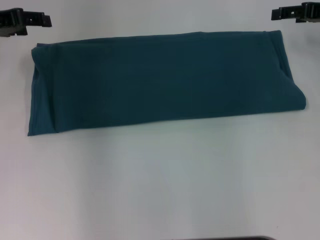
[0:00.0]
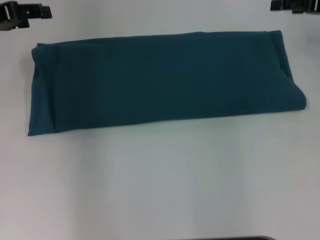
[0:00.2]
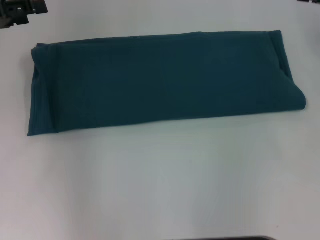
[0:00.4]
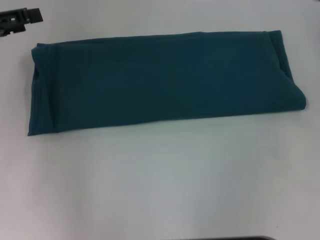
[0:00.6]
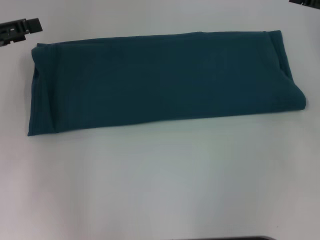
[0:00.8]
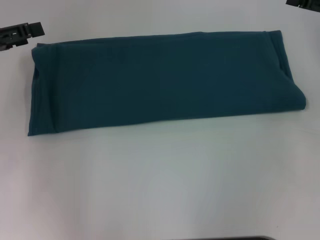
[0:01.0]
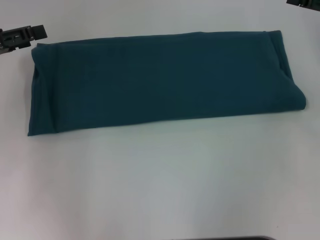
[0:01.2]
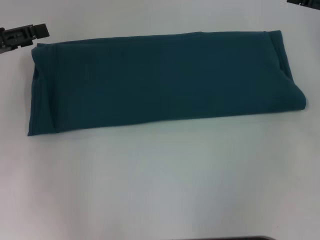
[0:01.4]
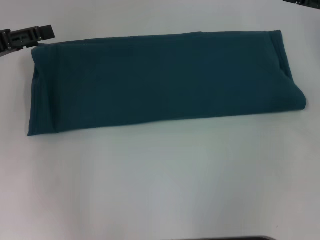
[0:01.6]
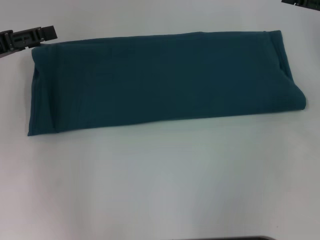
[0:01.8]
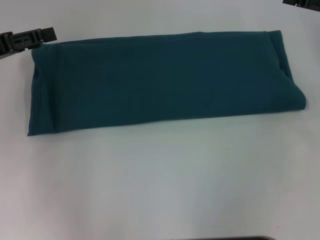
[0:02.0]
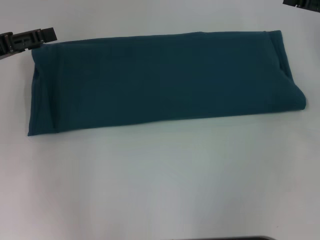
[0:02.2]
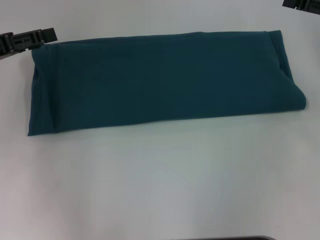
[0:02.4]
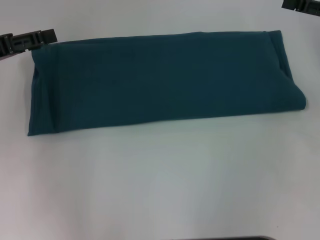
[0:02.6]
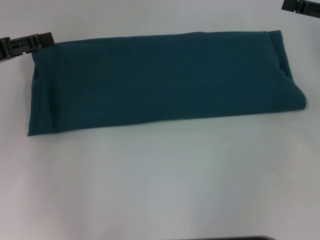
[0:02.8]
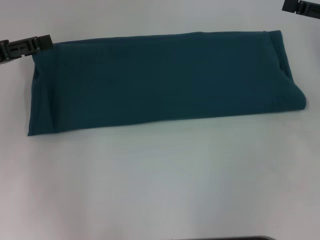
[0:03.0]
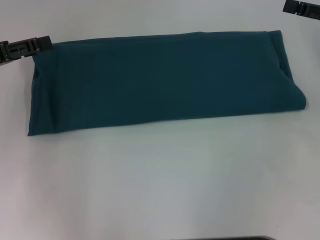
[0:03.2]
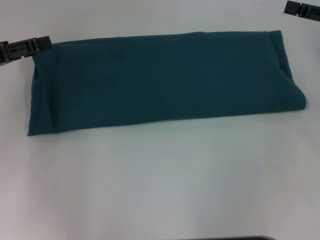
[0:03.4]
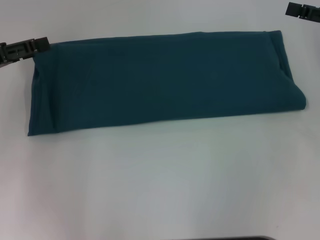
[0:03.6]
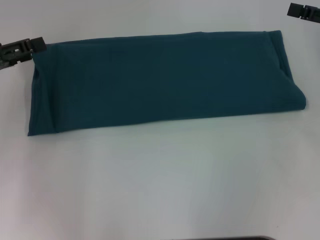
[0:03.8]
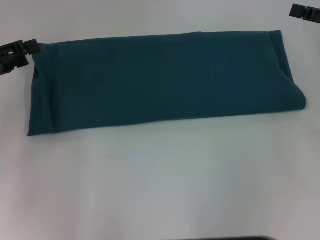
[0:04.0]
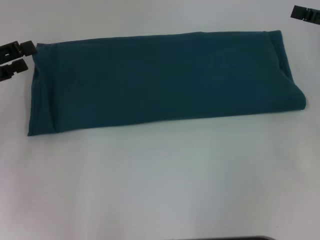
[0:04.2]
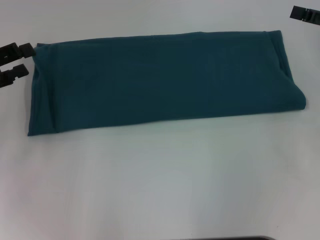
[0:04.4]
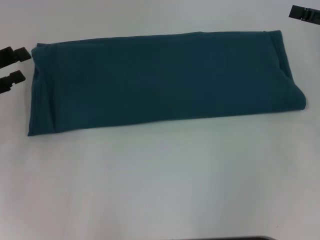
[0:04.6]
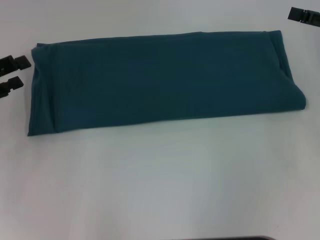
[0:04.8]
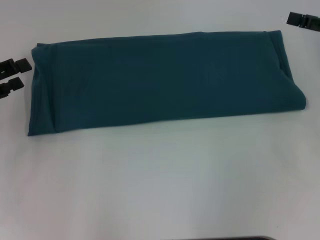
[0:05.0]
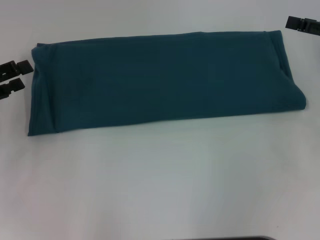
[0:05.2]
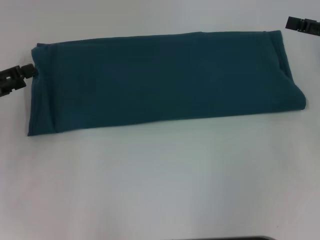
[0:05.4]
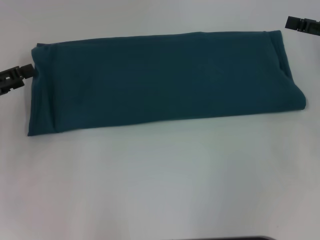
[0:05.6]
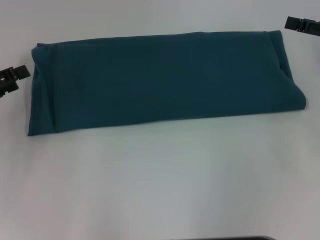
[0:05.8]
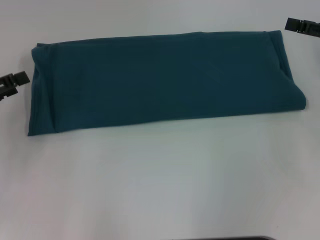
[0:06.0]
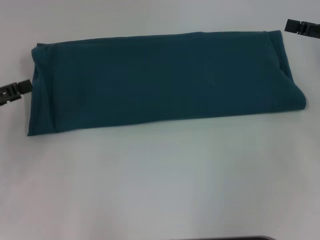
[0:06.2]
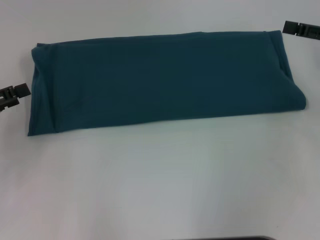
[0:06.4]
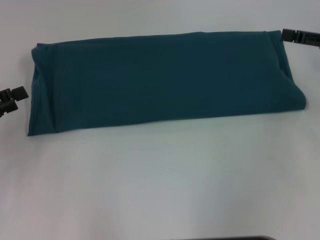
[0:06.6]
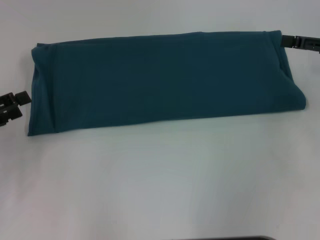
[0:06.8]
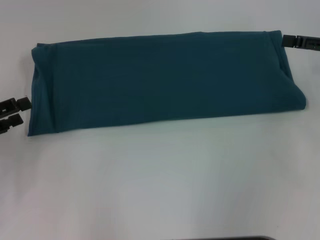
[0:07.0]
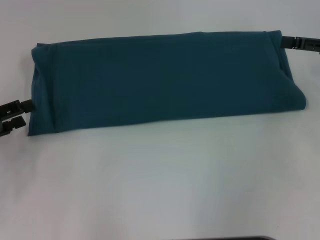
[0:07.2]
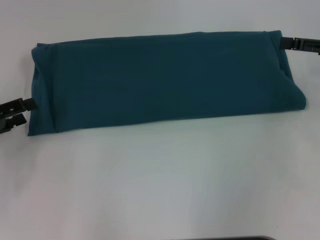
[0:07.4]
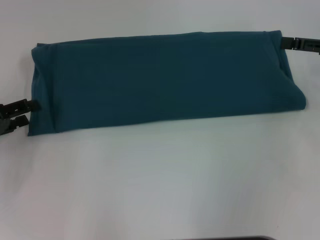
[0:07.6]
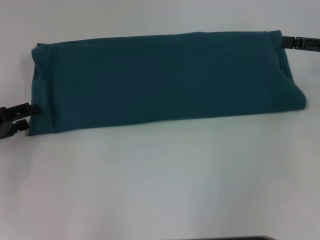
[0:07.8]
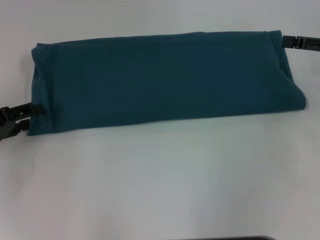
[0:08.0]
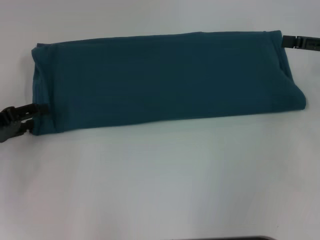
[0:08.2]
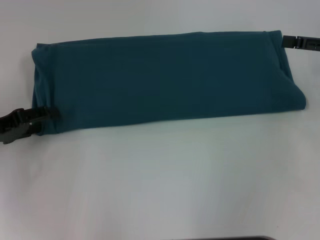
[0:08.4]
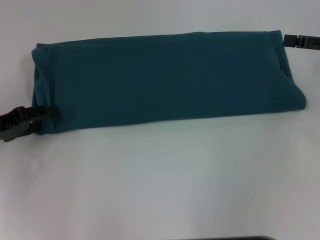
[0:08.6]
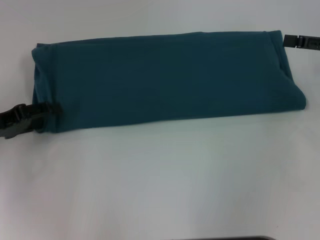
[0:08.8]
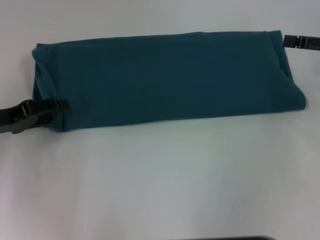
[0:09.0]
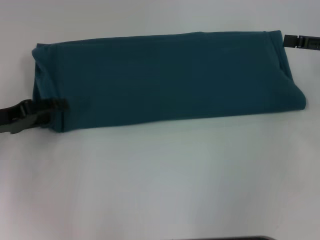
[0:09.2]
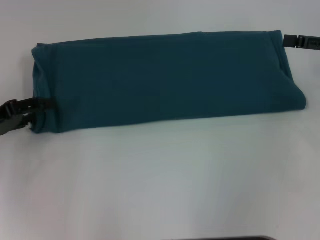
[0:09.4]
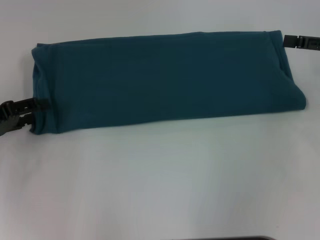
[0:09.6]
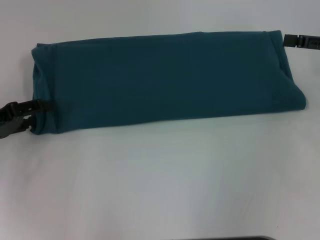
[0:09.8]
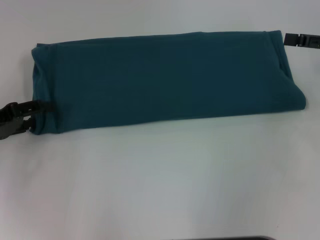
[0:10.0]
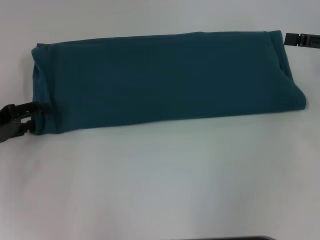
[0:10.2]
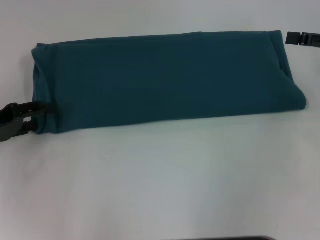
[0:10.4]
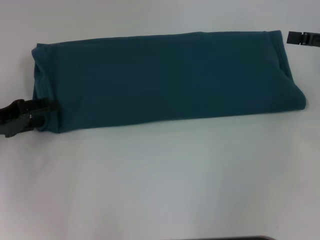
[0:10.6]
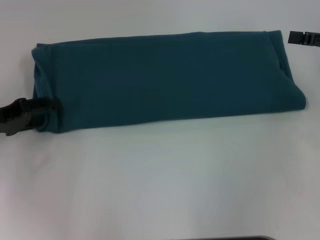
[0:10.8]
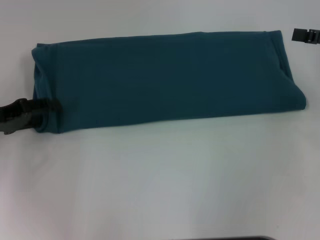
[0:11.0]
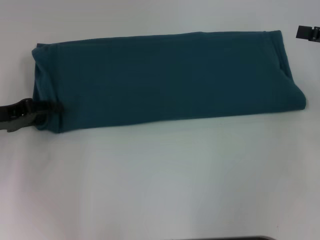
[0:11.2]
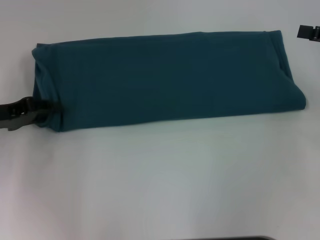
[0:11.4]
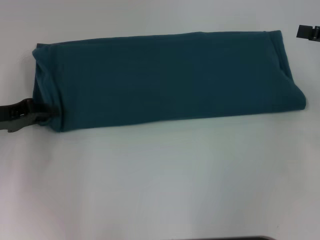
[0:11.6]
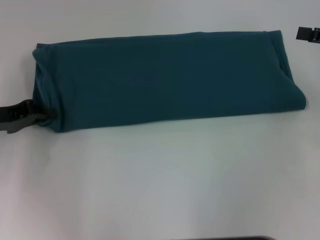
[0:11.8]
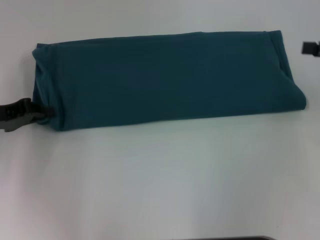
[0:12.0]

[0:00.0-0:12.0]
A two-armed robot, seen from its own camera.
0:00.0 to 0:01.6: Both grippers move backward, about 5 cm.
0:01.6 to 0:03.0: The two grippers keep their place.
0:04.4 to 0:06.0: There are only small adjustments of the grippers.
0:06.0 to 0:10.4: The grippers move only a little.
0:10.4 to 0:12.0: The left gripper closes up.

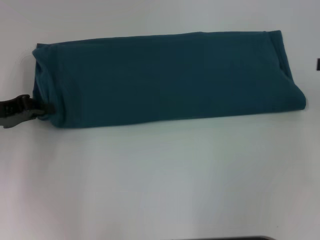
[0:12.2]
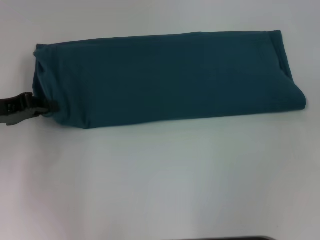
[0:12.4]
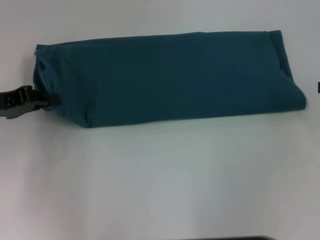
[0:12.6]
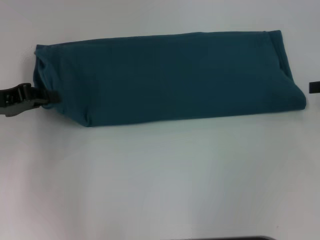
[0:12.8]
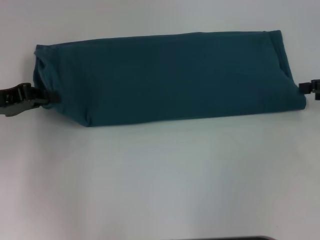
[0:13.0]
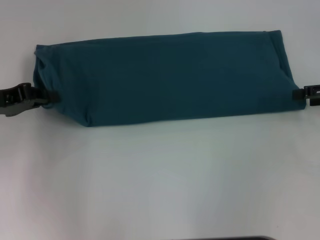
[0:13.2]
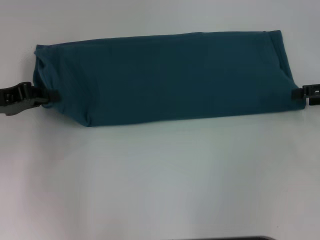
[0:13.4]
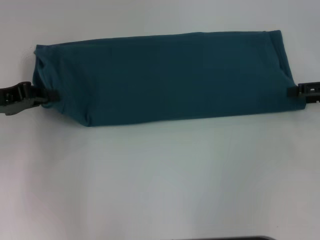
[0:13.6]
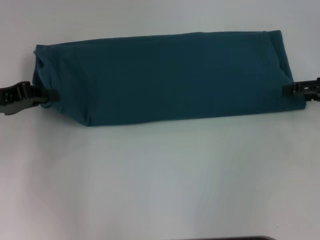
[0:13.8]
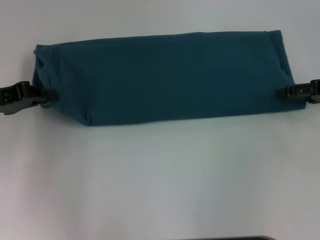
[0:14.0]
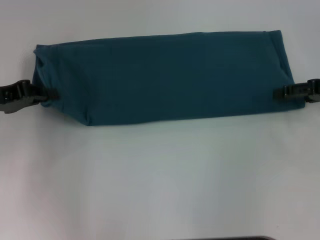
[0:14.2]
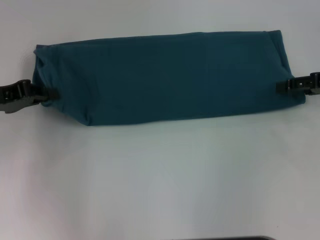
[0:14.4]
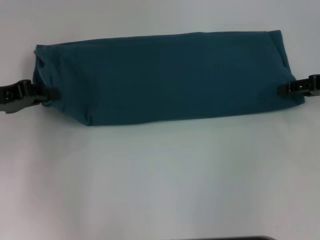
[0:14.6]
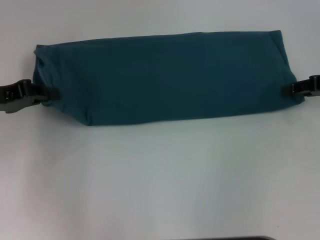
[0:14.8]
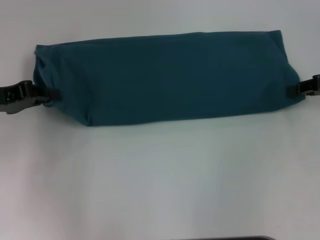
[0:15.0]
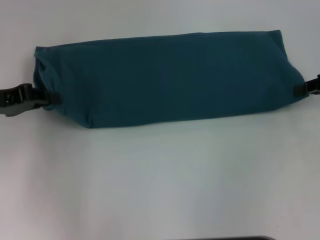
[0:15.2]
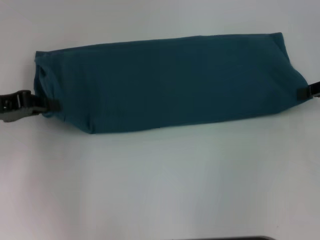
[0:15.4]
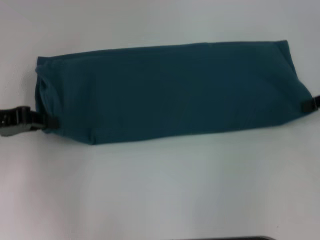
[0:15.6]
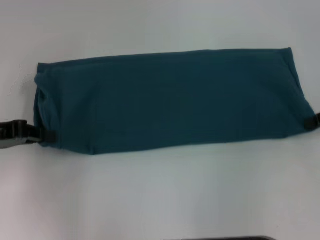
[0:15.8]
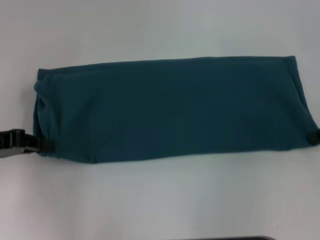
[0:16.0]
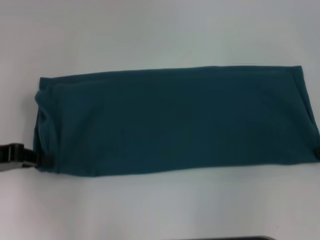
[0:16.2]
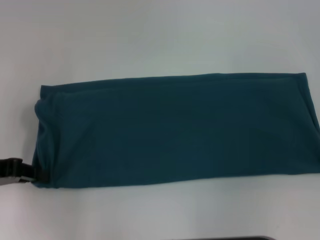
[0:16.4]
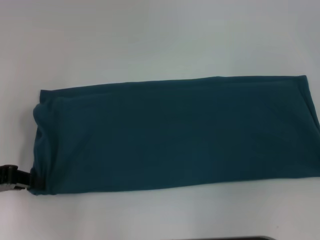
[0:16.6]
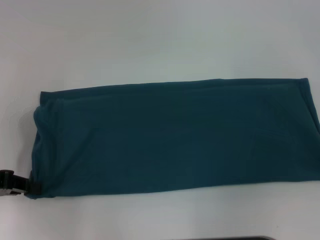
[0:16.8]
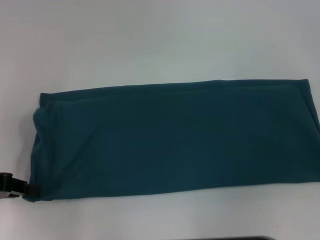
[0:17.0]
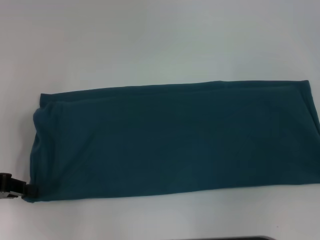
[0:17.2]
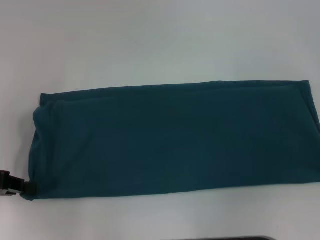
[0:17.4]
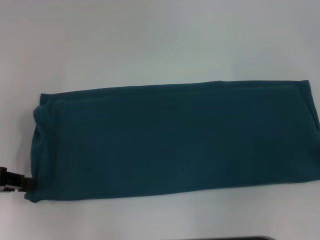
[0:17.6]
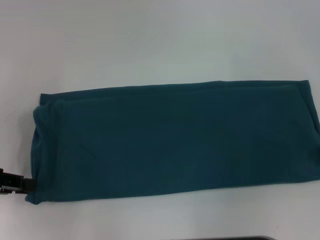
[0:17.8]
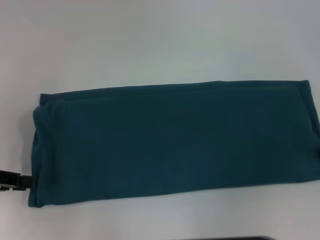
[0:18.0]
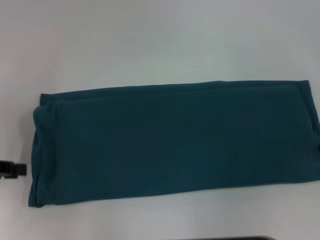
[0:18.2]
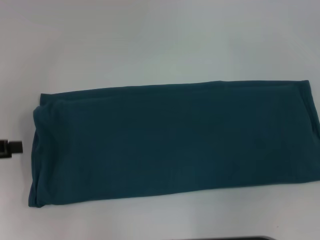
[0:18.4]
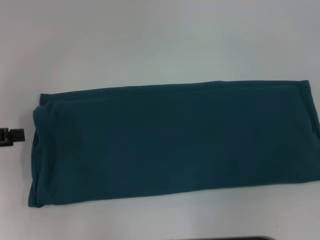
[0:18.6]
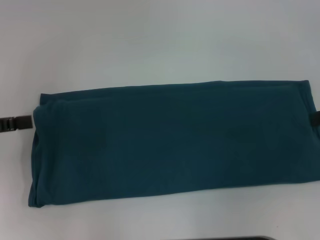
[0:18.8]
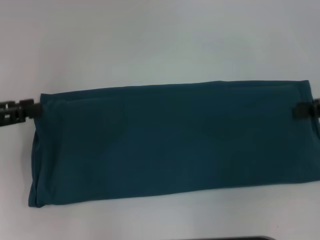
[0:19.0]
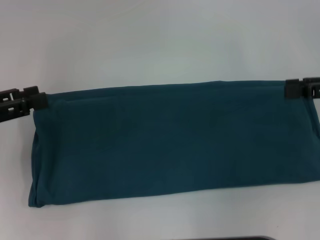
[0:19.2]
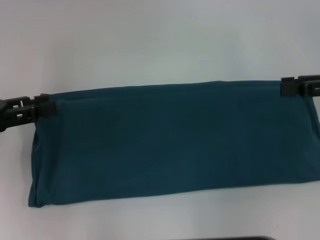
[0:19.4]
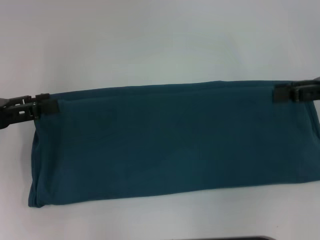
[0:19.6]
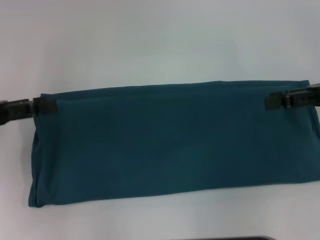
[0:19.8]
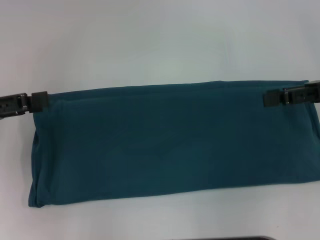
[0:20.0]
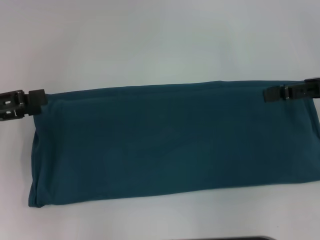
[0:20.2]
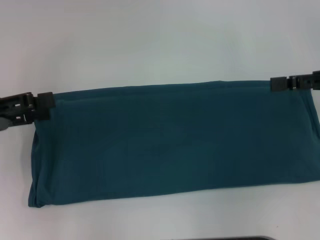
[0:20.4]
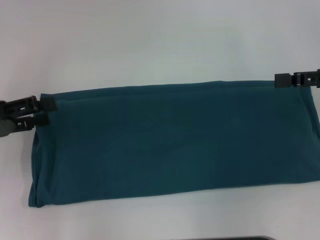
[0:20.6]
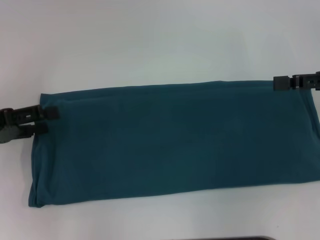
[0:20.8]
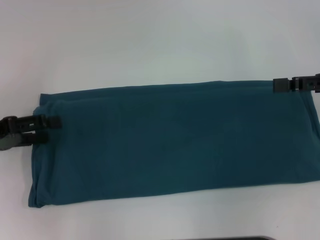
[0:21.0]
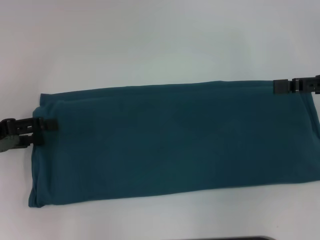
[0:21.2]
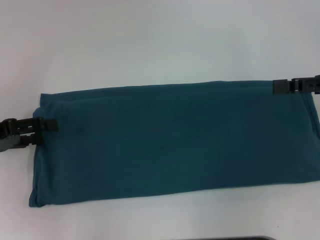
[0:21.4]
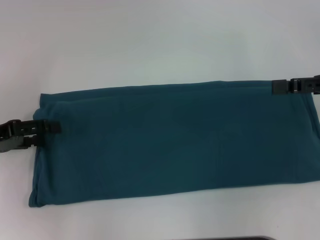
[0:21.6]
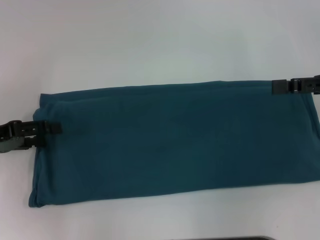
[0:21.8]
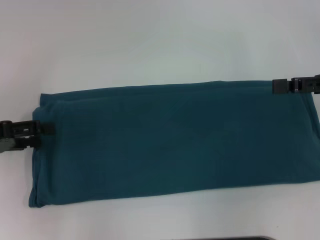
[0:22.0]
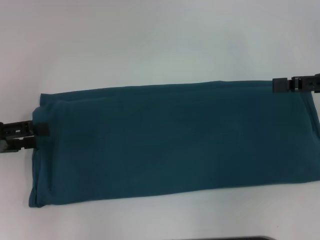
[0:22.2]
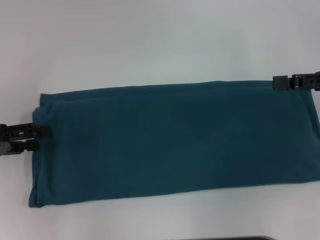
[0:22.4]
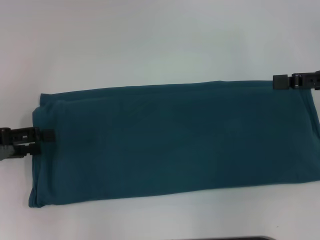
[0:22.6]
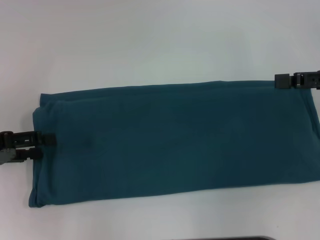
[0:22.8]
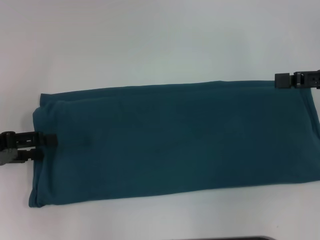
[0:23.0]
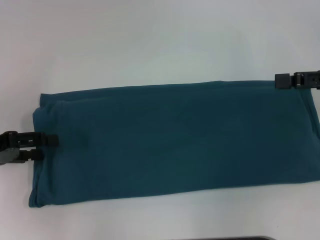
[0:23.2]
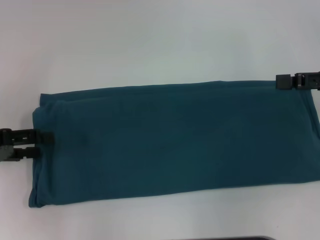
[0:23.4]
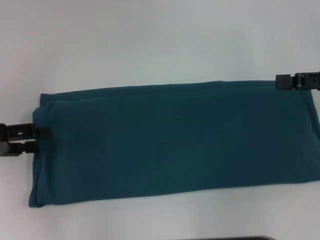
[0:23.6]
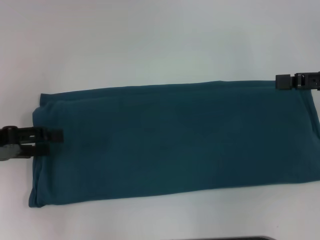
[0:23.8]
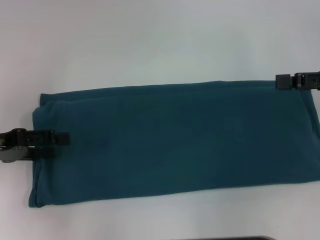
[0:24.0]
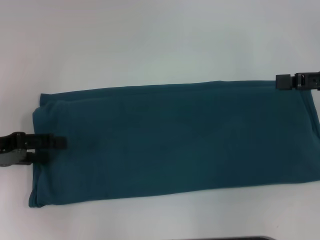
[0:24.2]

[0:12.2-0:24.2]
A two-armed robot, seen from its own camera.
Step, 0:12.2 to 0:18.0: Pull the clothes with your left hand.
Step, 0:12.2 to 0:18.0: Pull the clothes with your right hand.
0:12.2 to 0:13.8: The right gripper changes place by approximately 5 cm.
0:13.8 to 0:15.2: The right gripper closes.
0:15.2 to 0:16.6: The two grippers go roughly 5 cm backward.
0:16.6 to 0:18.2: The right gripper opens up.
0:18.2 to 0:19.8: The left gripper opens up.
0:19.8 to 0:21.2: The left gripper is displaced downward by roughly 5 cm.
0:21.2 to 0:24.2: The grippers move only a little.
